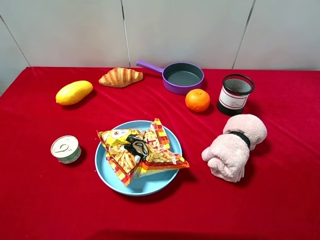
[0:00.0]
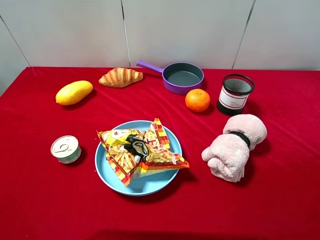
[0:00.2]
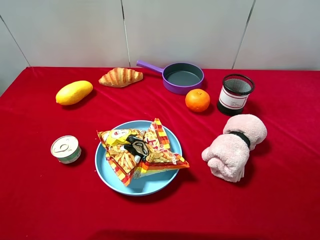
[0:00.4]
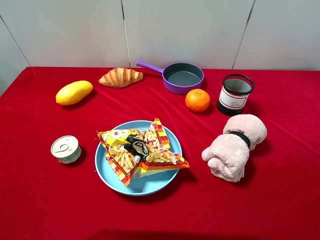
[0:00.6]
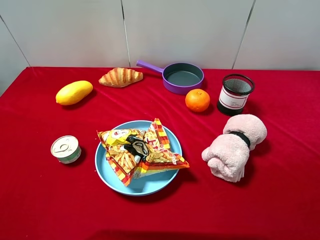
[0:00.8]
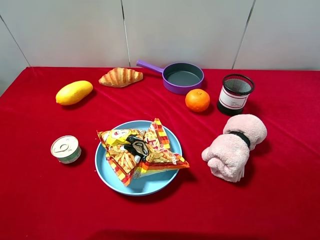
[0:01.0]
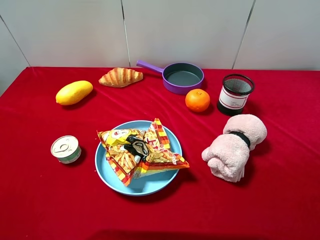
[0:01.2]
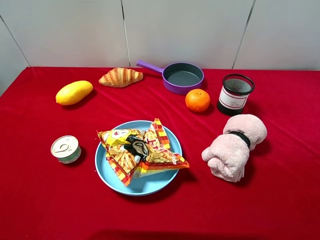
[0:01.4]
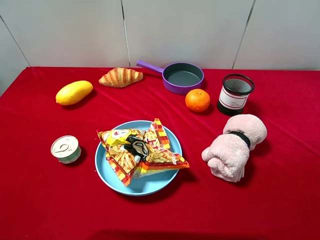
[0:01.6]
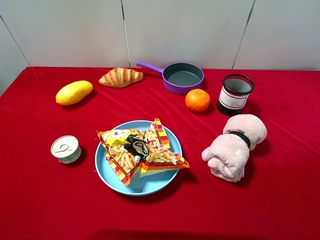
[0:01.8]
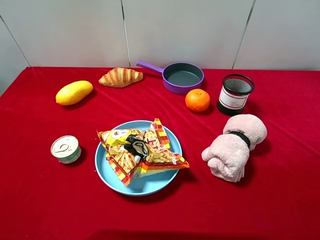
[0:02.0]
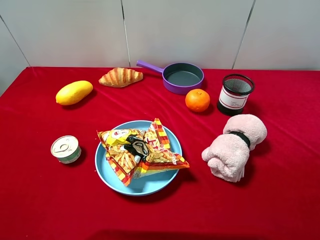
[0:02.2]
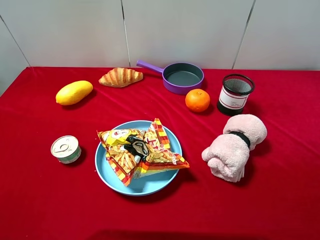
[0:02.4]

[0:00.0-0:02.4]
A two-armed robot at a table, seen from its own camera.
Task of the whole recording: pick up an item with a gripper and place it in a random container on the desktop.
0:01.2 to 0:02.4: The two grippers keep their place.
